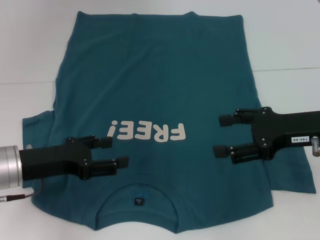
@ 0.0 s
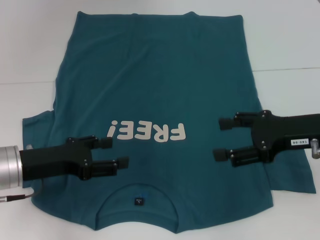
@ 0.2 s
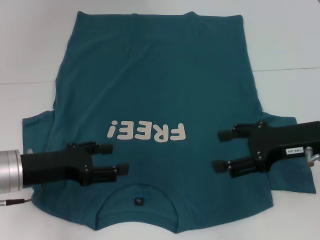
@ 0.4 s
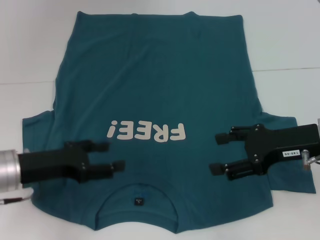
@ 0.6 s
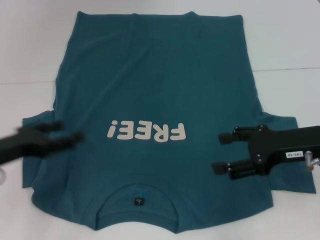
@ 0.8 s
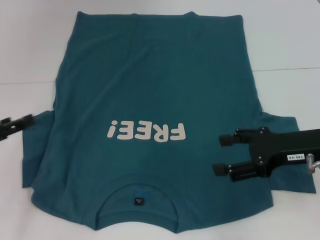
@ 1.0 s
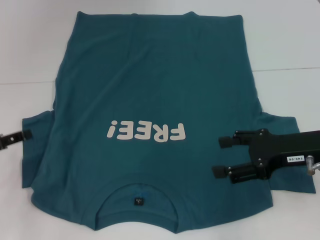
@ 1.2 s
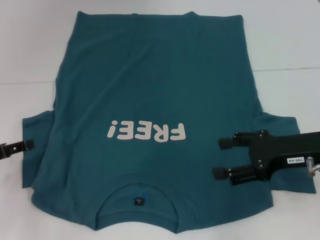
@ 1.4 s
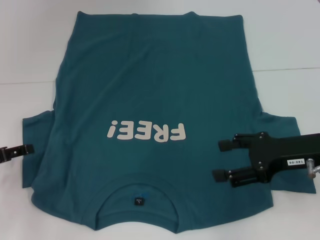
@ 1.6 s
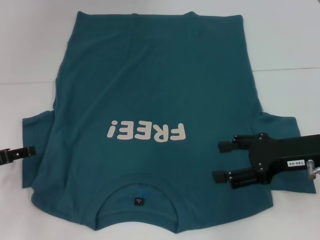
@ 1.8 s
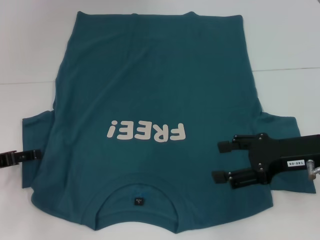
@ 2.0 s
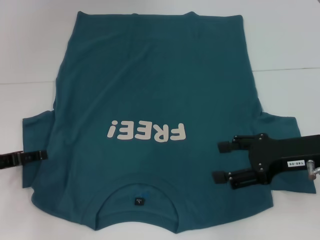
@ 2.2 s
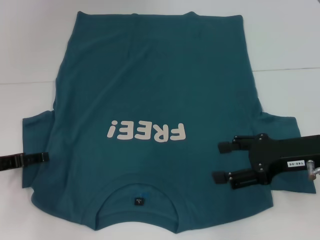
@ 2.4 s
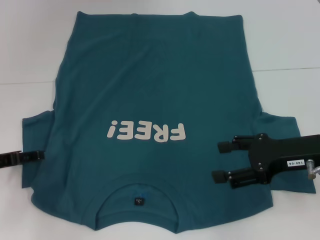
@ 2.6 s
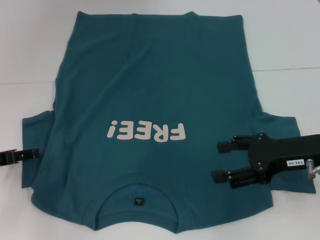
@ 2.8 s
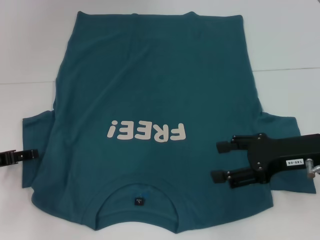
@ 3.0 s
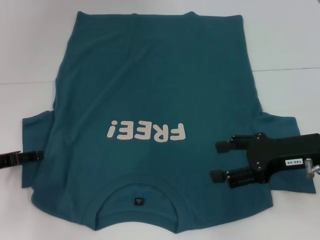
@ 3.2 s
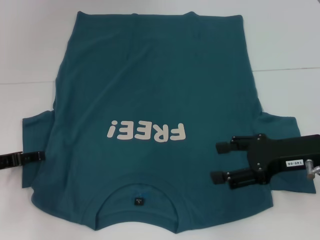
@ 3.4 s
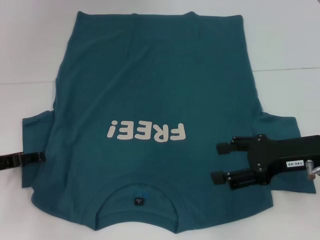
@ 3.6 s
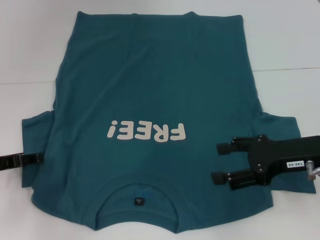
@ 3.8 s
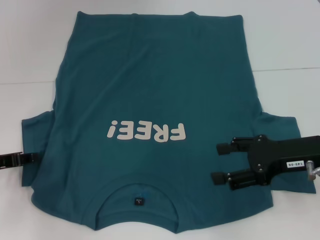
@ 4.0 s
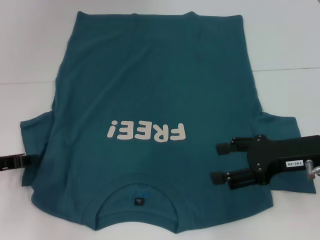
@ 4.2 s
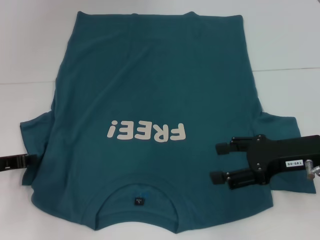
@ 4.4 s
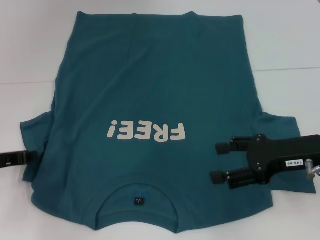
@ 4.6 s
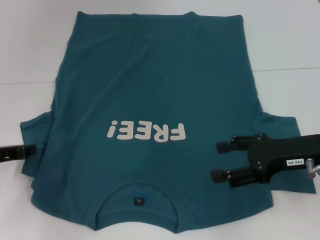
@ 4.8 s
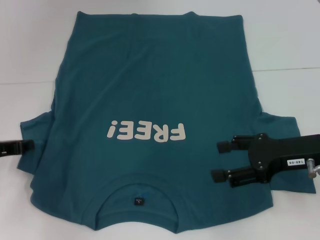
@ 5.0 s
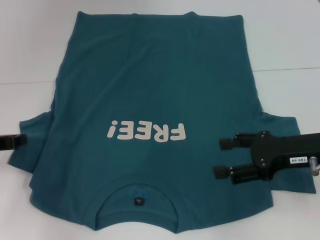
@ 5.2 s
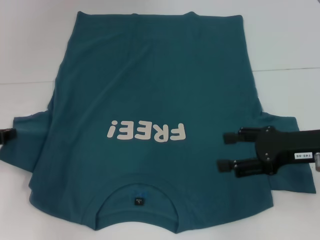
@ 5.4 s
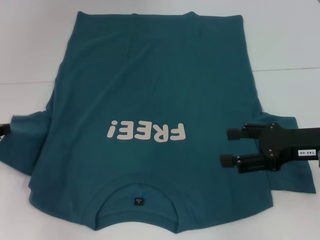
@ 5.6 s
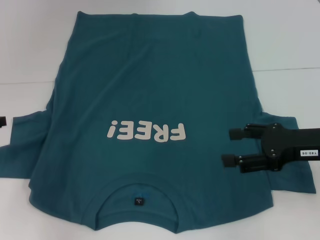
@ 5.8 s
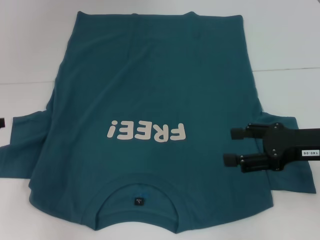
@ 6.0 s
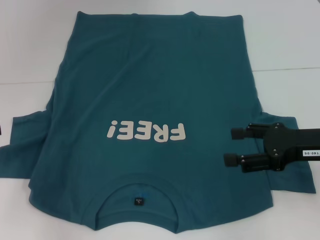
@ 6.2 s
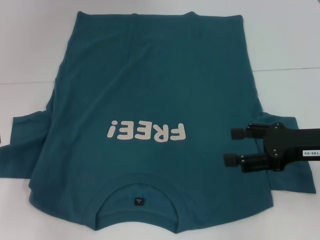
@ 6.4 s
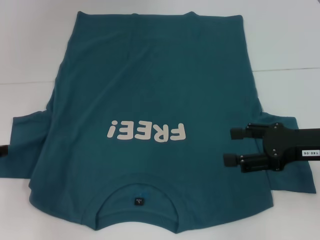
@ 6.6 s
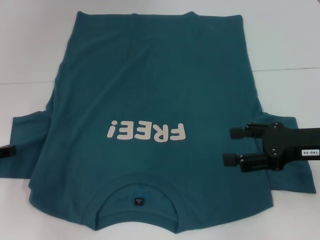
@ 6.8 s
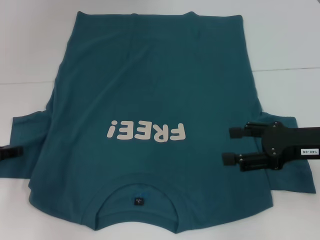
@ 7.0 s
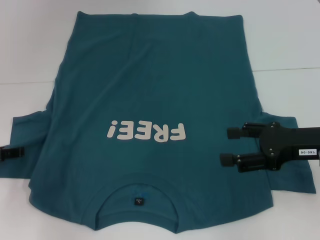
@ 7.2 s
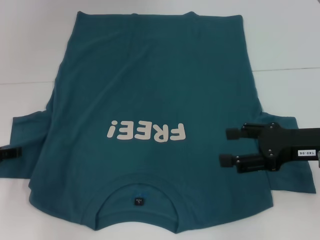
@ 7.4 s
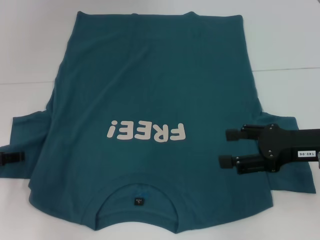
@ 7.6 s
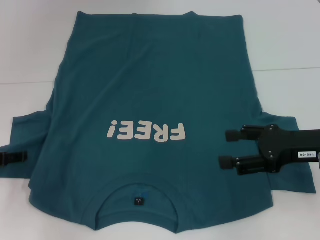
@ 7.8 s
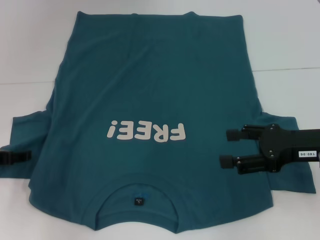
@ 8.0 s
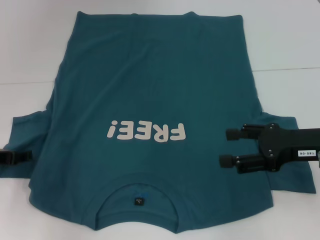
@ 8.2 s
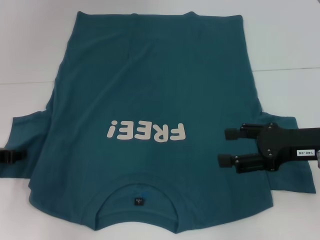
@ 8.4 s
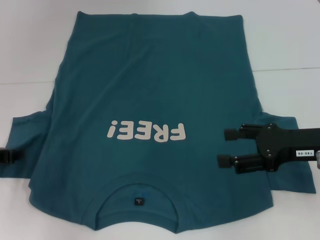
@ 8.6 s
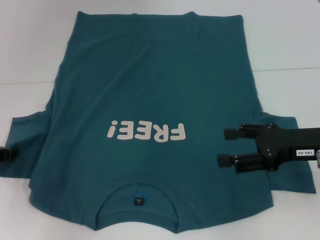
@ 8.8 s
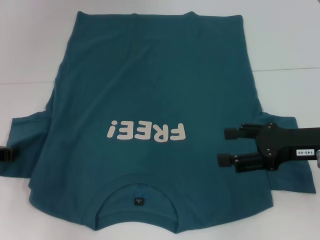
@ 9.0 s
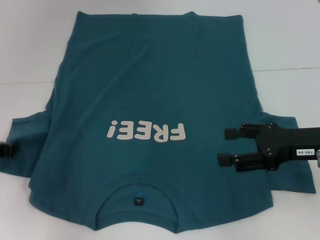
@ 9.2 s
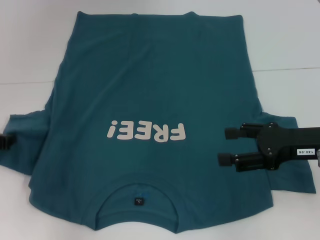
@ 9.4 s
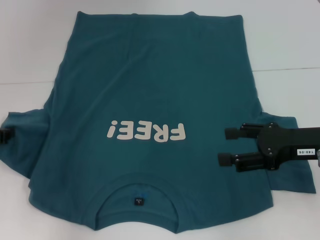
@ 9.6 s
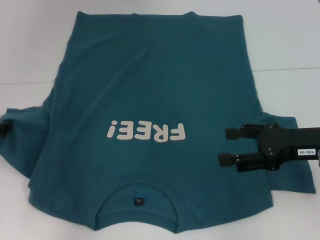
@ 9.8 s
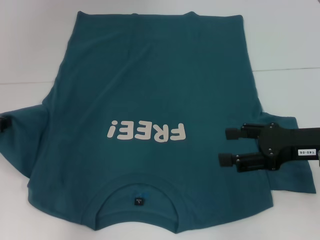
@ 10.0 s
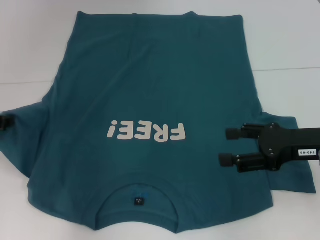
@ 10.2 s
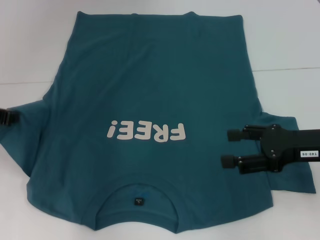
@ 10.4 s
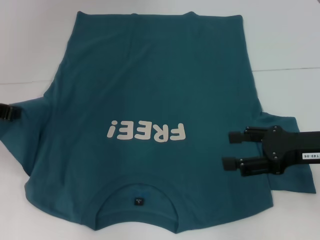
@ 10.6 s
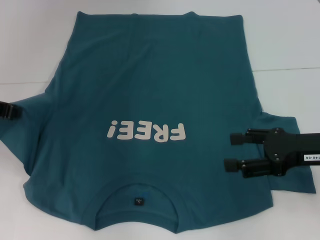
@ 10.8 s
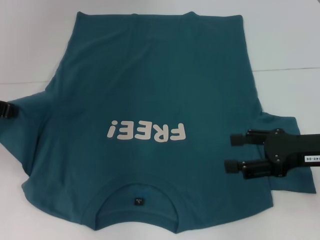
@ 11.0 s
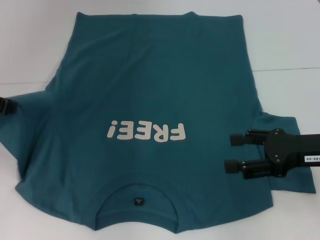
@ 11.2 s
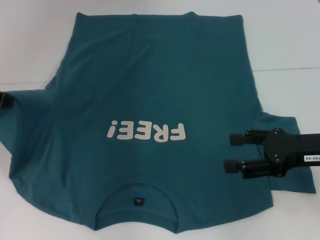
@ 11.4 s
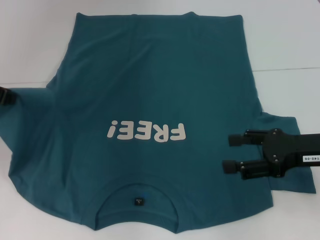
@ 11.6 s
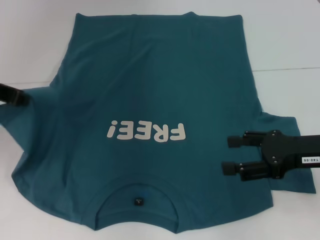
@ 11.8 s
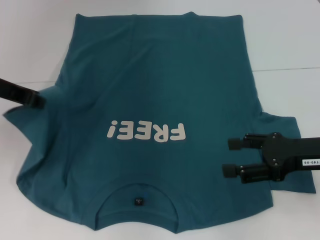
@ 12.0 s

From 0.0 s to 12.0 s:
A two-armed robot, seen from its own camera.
From 0.0 s to 1.6 s: The left gripper moves to the left, some 10 cm.
From 3.0 s to 4.4 s: The left gripper closes its fingers.
From 4.4 s to 6.0 s: The left gripper shifts roughly 5 cm upward.
From 6.0 s to 7.6 s: The left gripper shifts approximately 5 cm downward, and opens its fingers.
From 9.0 s to 10.4 s: The left gripper shifts roughly 10 cm upward.
From 10.4 s to 12.0 s: The left gripper is displaced upward and to the right by some 10 cm.

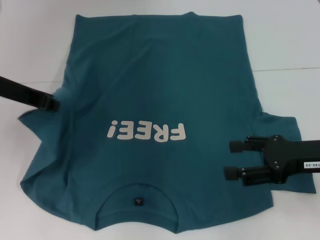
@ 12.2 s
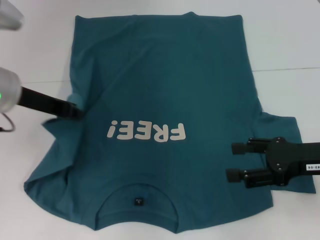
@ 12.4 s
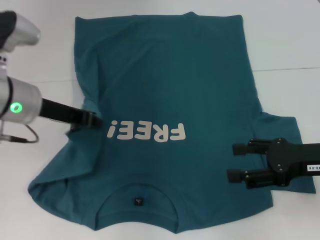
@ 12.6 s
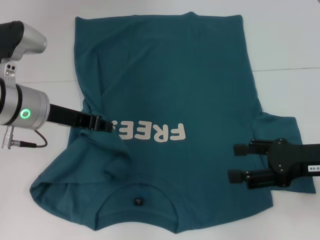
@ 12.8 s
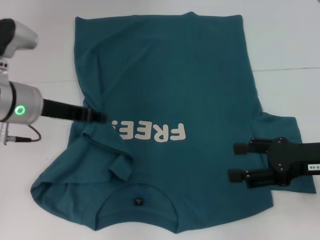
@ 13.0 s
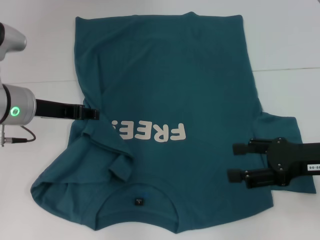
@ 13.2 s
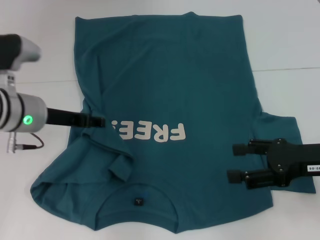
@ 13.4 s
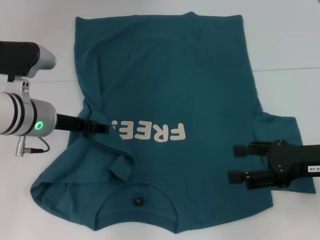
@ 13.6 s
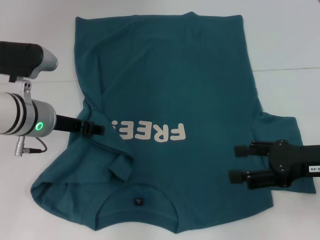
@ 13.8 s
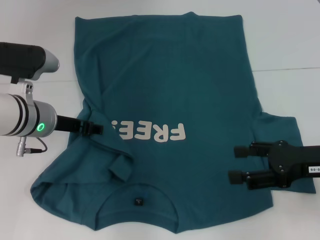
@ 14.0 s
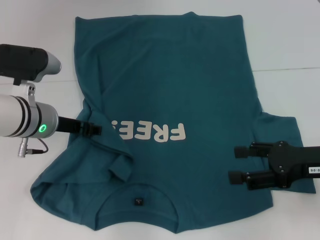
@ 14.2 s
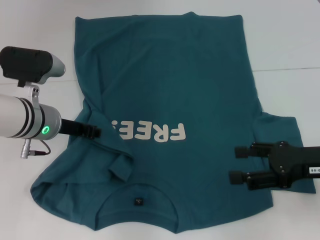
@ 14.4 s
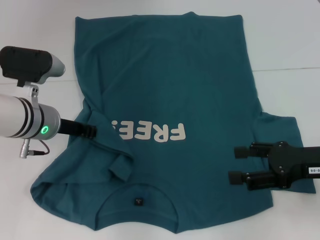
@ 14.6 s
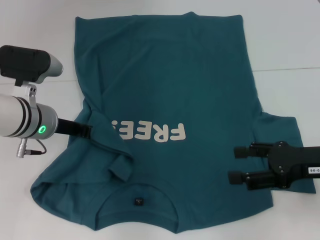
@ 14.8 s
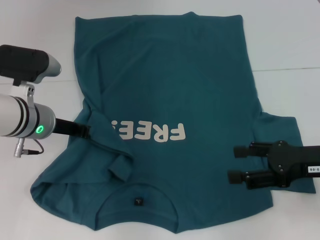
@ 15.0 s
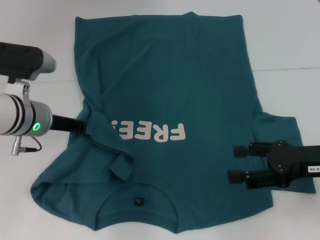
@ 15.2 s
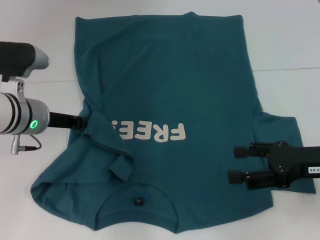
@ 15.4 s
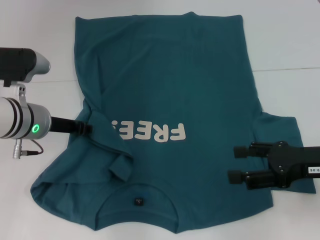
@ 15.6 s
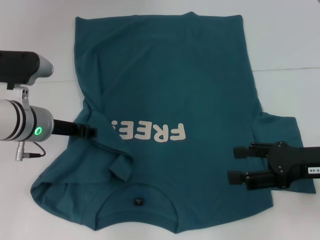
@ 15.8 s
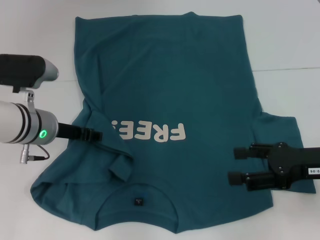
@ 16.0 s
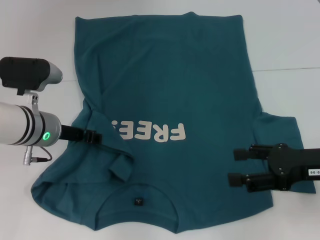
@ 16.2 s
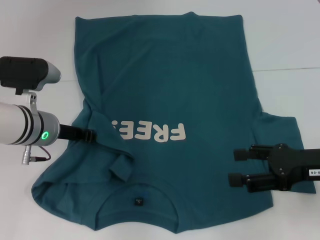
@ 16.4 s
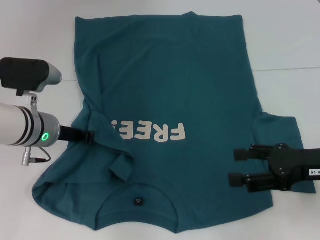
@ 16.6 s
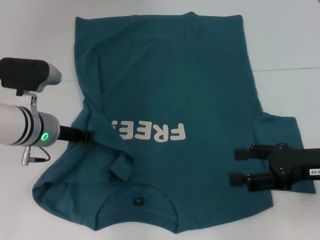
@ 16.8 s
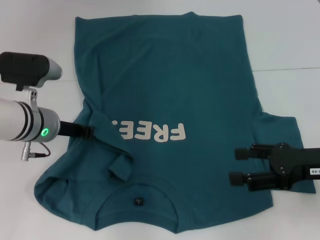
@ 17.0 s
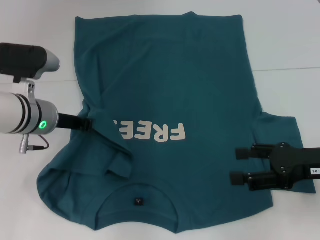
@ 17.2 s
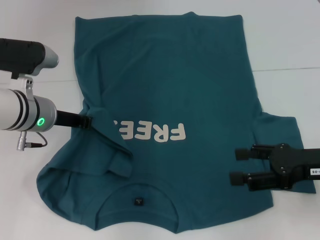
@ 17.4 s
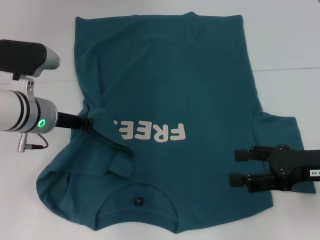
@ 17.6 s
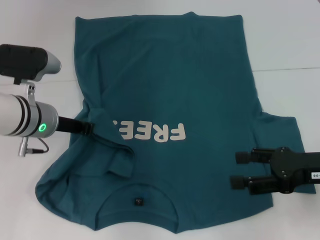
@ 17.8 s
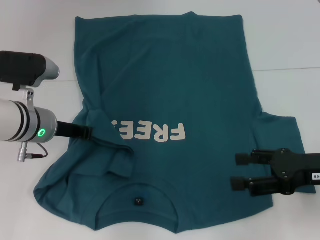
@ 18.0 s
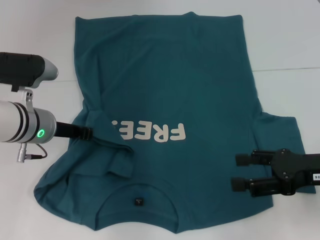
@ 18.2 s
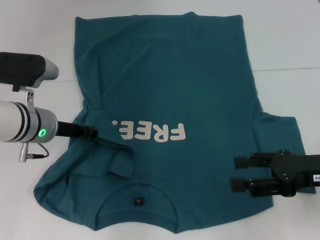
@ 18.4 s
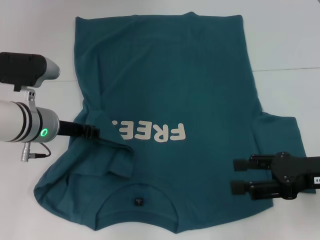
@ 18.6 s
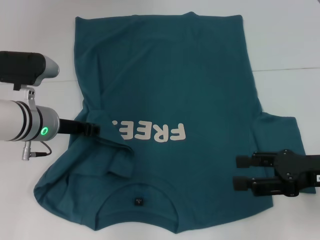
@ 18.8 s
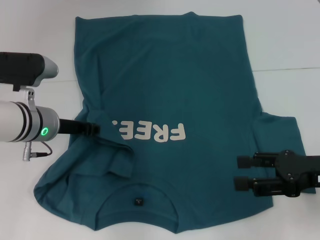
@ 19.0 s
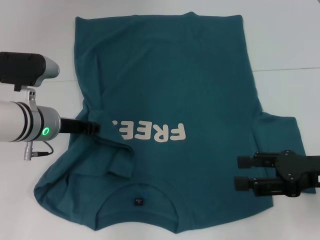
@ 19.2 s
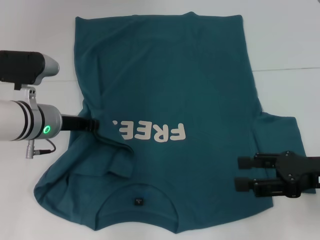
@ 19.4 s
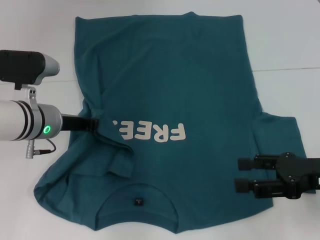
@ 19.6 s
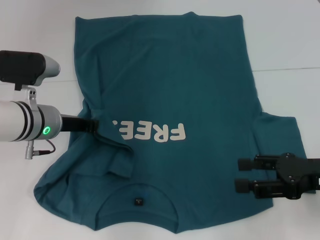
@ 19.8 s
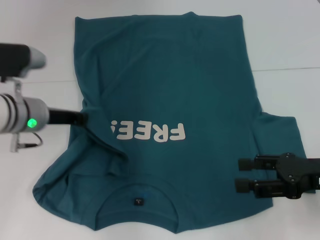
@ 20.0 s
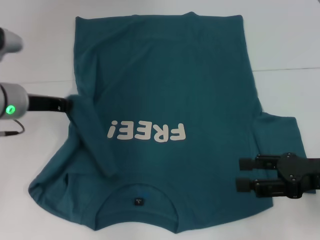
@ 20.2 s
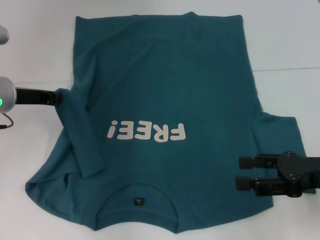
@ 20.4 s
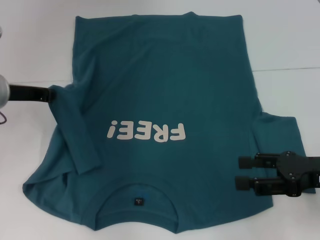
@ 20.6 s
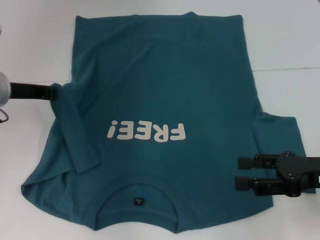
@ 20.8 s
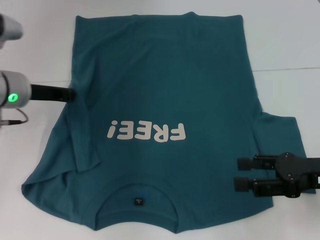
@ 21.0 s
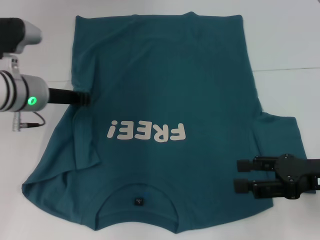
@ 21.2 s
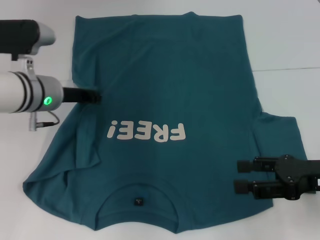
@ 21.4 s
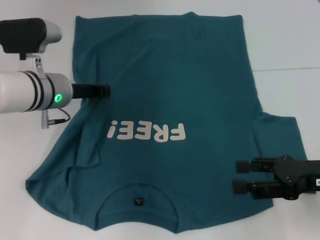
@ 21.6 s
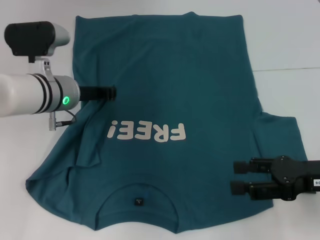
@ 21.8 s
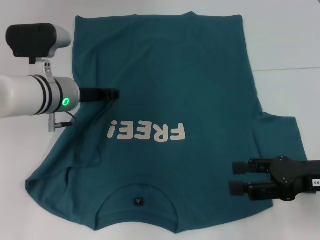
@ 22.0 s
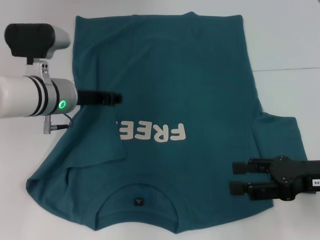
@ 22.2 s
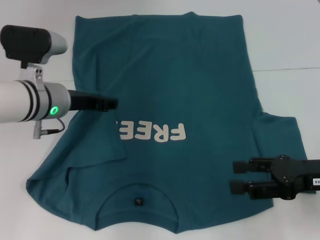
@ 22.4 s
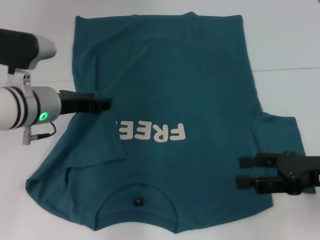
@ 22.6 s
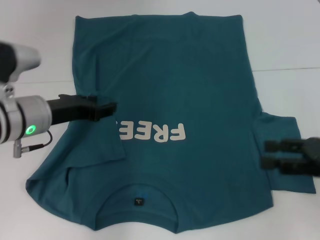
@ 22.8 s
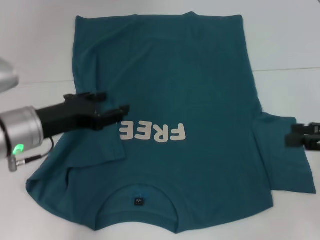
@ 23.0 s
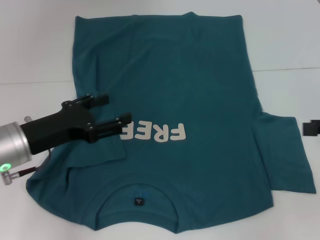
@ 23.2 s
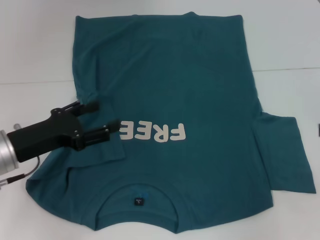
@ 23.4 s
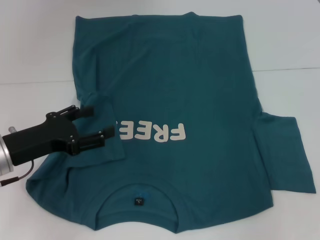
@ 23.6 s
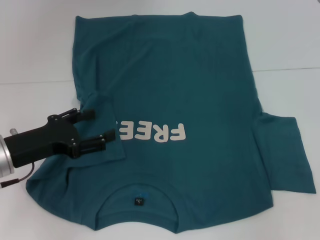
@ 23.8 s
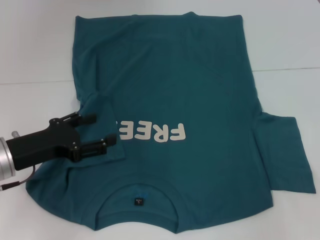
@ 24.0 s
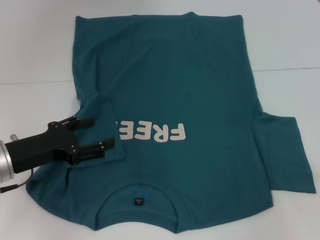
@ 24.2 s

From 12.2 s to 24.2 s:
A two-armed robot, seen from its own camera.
From 12.2 s to 13.8 s: The left gripper heads downward, covering roughly 10 cm, and opens its fingers.
From 13.8 s to 15.2 s: The left gripper closes its fingers.
From 15.2 s to 16.6 s: The left gripper opens and closes again.
From 16.6 s to 18.2 s: The grippers move only a little.
From 18.2 s to 19.8 s: The left gripper opens and closes again.
From 21.2 s to 22.6 s: The left gripper opens its fingers.
From 22.6 s to 24.2 s: The right gripper is displaced to the right by approximately 10 cm. Meanwhile the left gripper goes some 10 cm backward and to the left, and opens.
